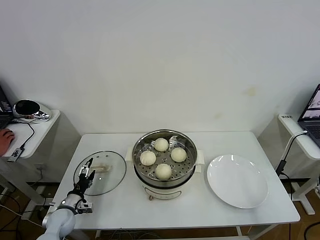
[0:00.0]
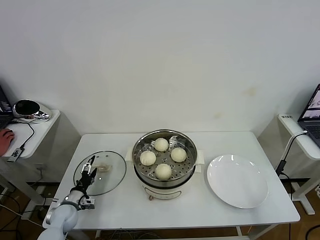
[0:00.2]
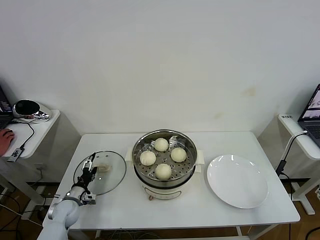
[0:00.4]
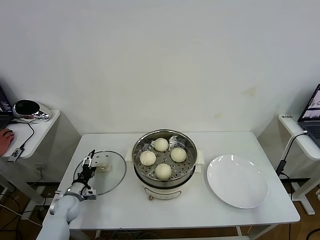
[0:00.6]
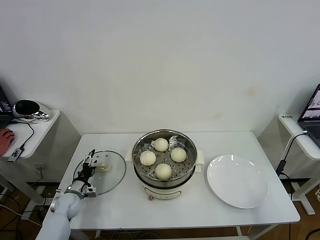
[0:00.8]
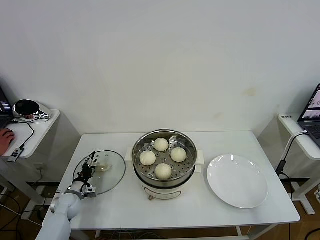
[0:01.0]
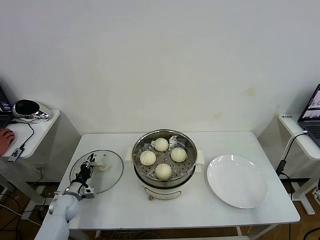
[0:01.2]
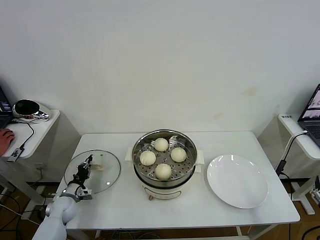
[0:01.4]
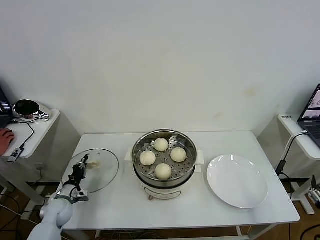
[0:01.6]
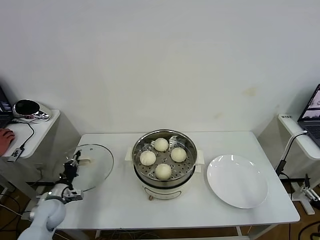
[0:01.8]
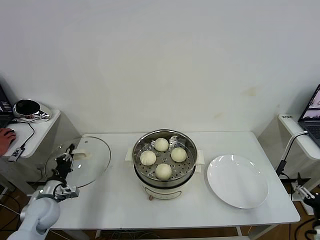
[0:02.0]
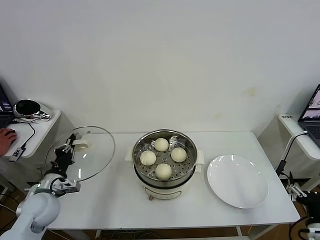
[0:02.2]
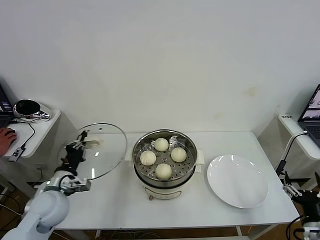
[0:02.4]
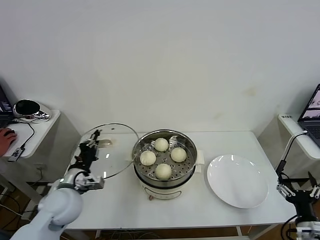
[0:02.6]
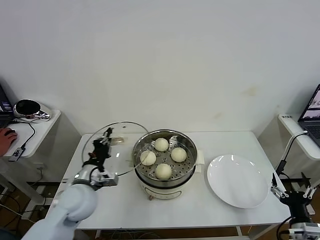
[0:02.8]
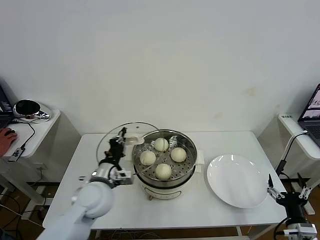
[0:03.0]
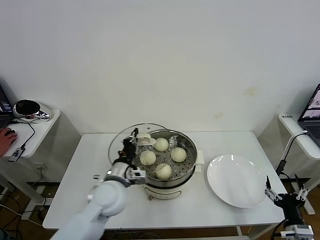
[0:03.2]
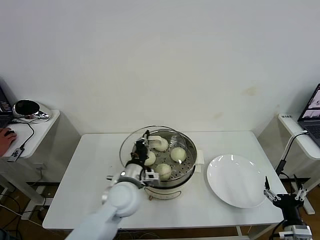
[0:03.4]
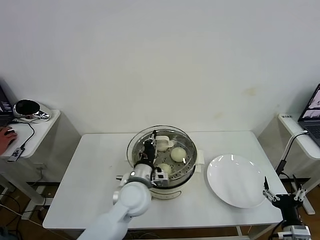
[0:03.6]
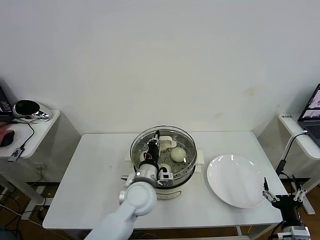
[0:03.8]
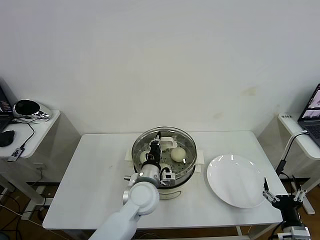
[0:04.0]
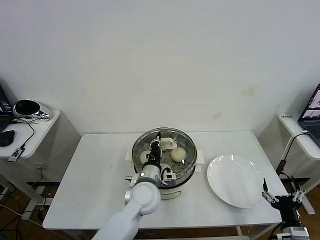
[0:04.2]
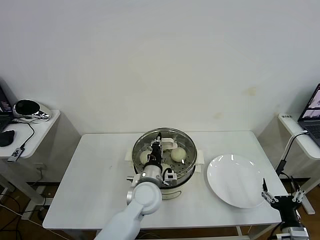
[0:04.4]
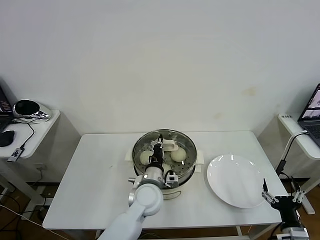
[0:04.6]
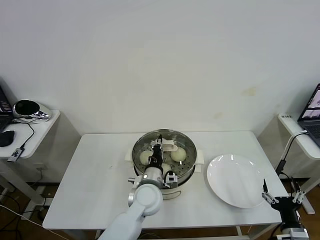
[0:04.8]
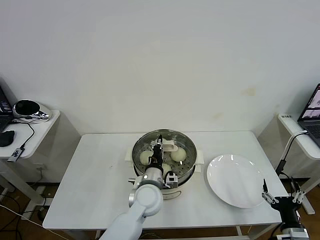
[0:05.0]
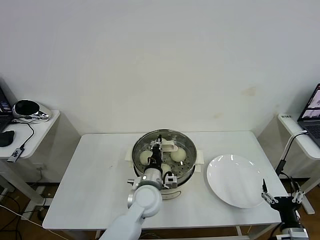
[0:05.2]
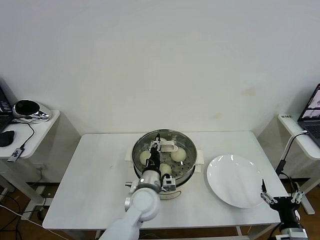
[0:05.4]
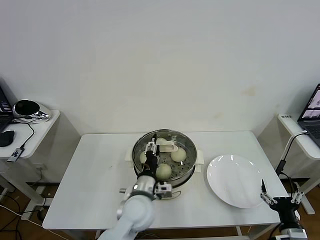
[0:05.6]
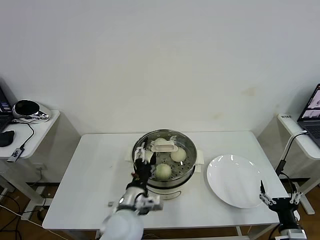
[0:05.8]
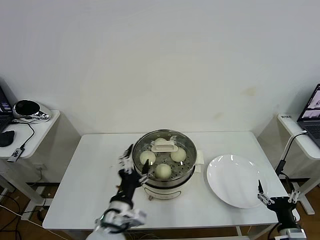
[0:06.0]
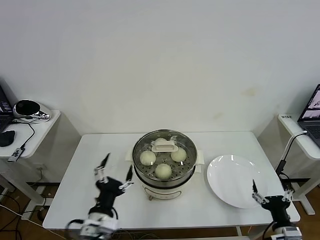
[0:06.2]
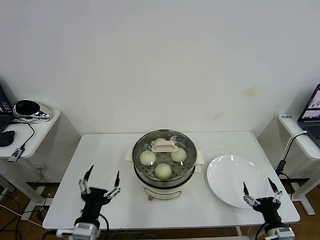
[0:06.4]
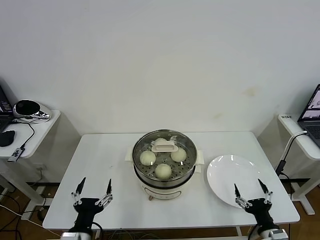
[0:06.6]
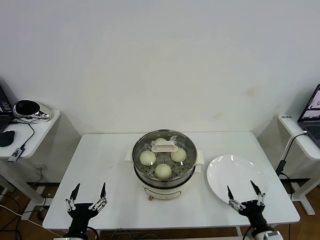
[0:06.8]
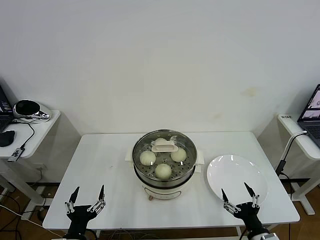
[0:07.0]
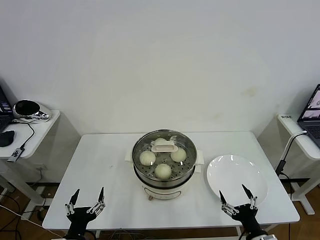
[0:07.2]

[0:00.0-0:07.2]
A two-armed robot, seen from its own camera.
Task of the whole recording: take steamed baozi put them in steamer then cover it.
Step, 0:01.8 to 0:05.8: Place the pot lid on the steamer with left gripper.
0:00.0 to 0:01.4: The left gripper goes some 5 cm forward, and closes.
0:01.4 to 0:02.8: The right gripper moves about 5 cm. The left gripper moves upward and to the right, about 25 cm.
0:02.8 to 0:04.4: The left gripper heads to the right, covering approximately 20 cm.
0:04.4 to 0:05.8: The left gripper travels backward by roughly 10 cm, and opens up.
0:05.8 to 0:07.2: The right gripper travels to the left by approximately 5 cm. The left gripper moves to the left and backward, roughly 20 cm.

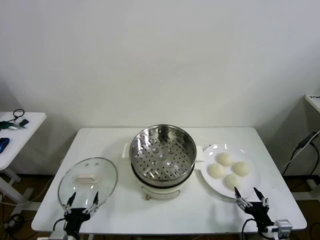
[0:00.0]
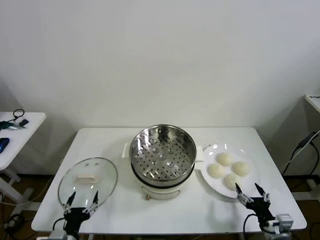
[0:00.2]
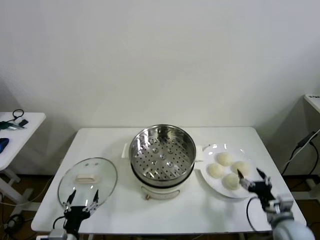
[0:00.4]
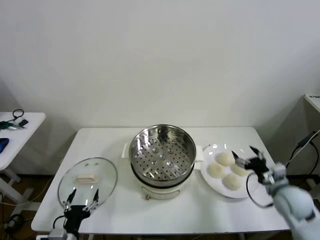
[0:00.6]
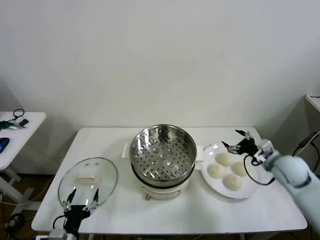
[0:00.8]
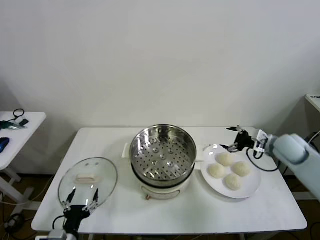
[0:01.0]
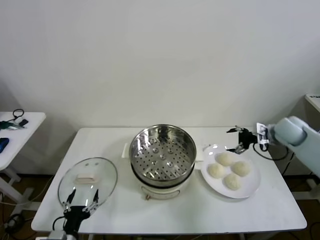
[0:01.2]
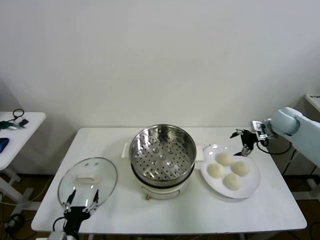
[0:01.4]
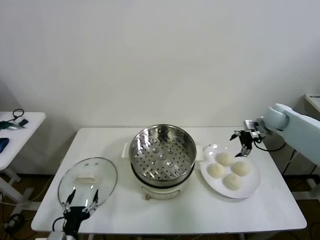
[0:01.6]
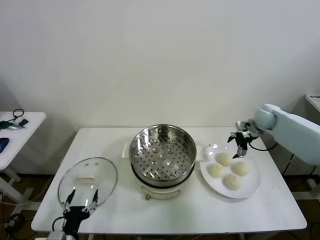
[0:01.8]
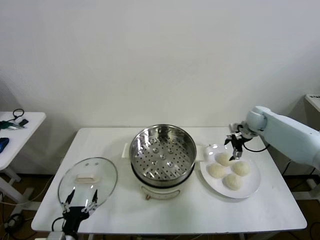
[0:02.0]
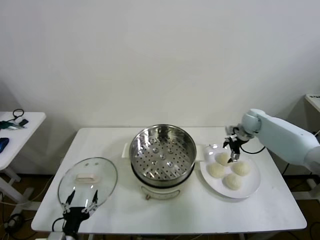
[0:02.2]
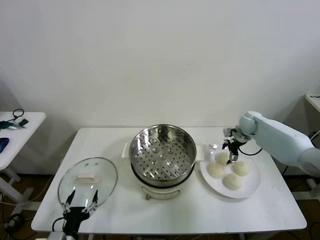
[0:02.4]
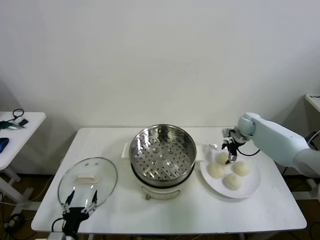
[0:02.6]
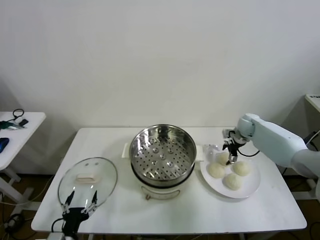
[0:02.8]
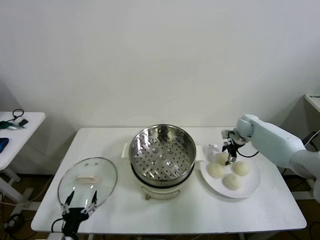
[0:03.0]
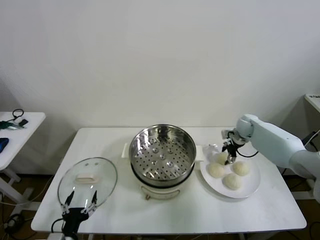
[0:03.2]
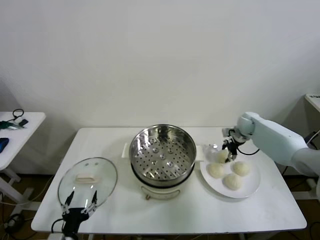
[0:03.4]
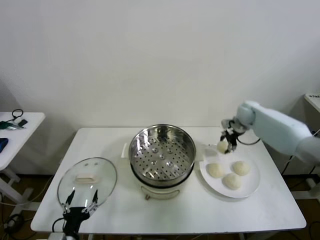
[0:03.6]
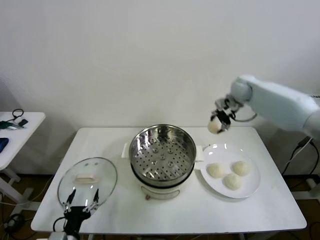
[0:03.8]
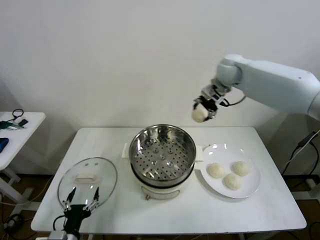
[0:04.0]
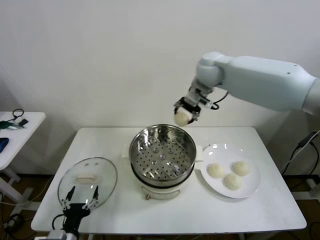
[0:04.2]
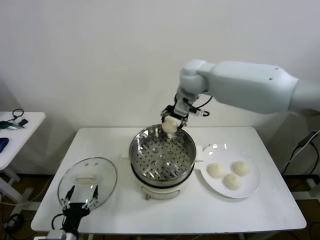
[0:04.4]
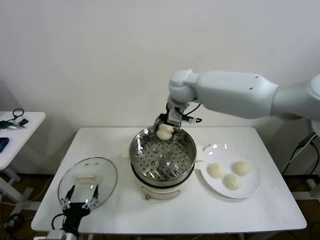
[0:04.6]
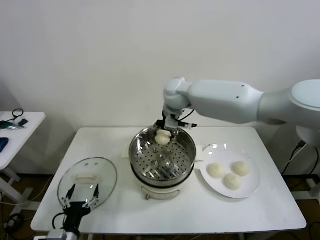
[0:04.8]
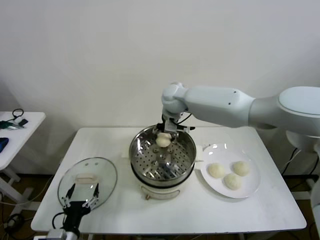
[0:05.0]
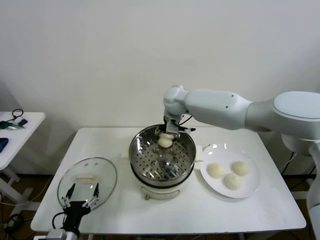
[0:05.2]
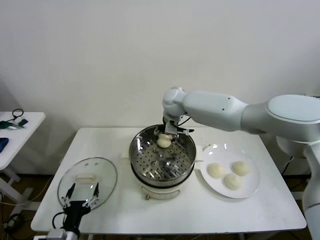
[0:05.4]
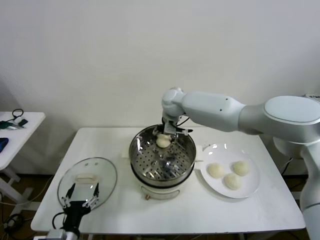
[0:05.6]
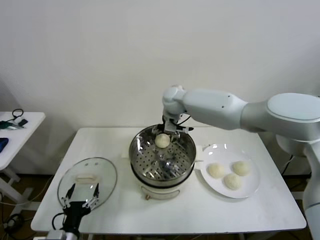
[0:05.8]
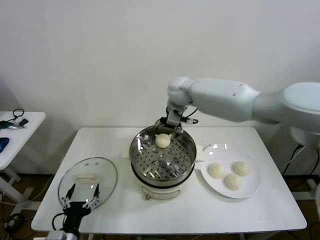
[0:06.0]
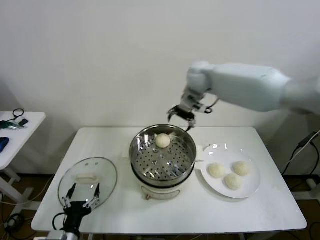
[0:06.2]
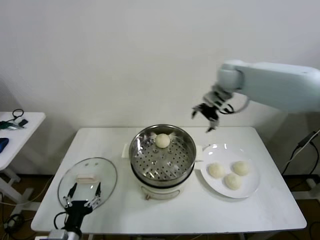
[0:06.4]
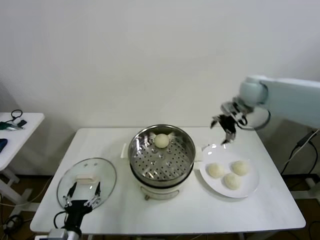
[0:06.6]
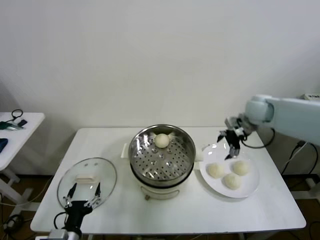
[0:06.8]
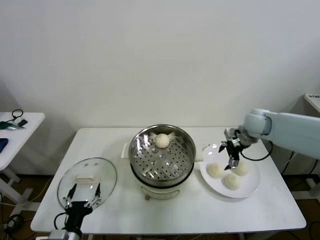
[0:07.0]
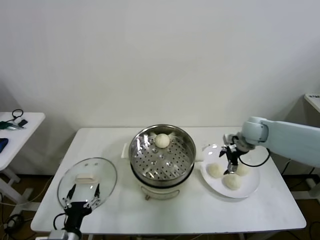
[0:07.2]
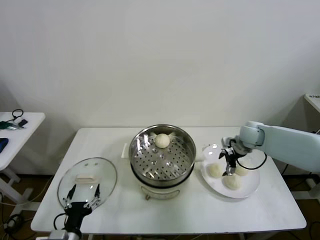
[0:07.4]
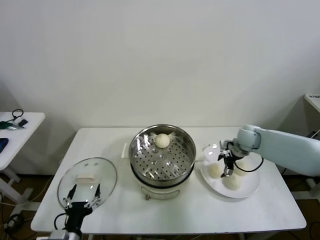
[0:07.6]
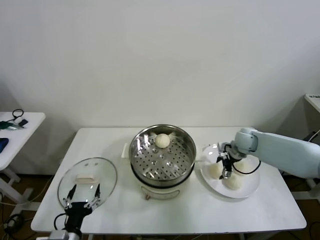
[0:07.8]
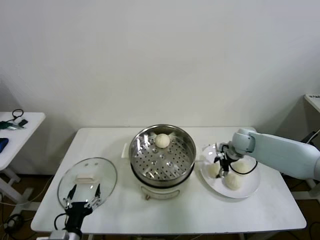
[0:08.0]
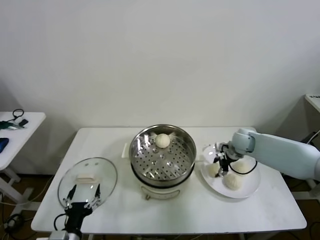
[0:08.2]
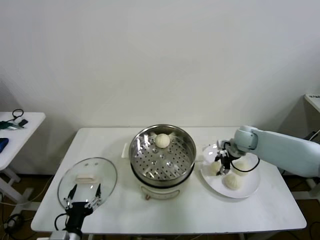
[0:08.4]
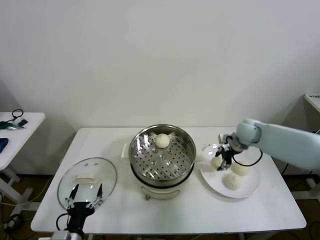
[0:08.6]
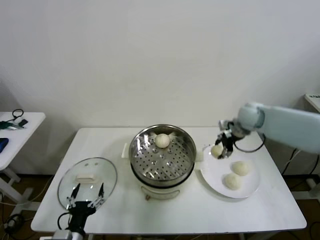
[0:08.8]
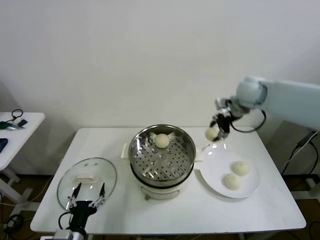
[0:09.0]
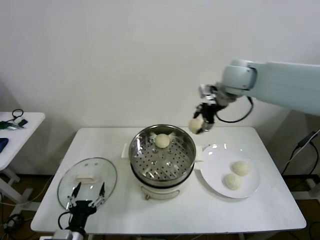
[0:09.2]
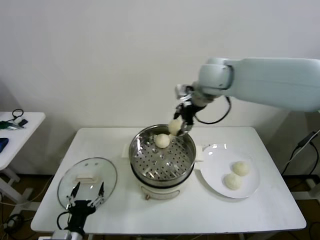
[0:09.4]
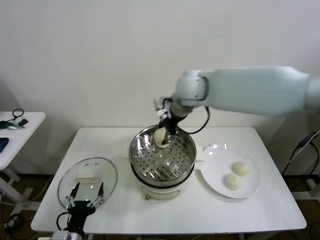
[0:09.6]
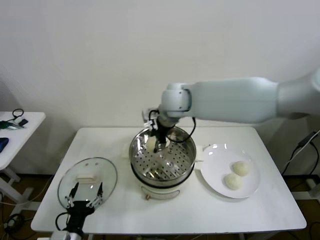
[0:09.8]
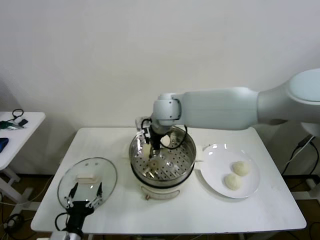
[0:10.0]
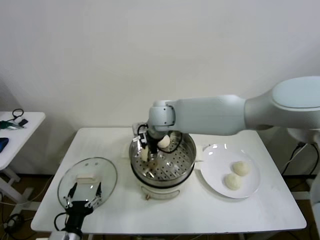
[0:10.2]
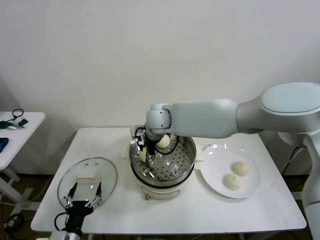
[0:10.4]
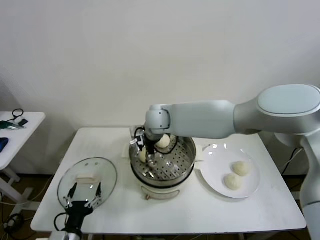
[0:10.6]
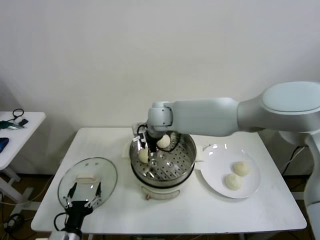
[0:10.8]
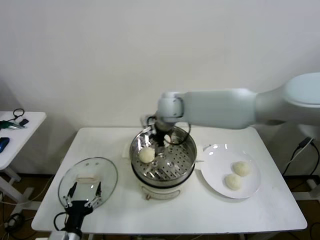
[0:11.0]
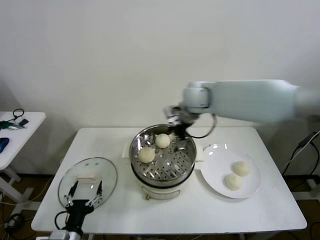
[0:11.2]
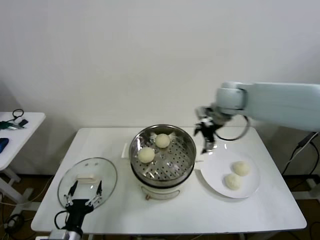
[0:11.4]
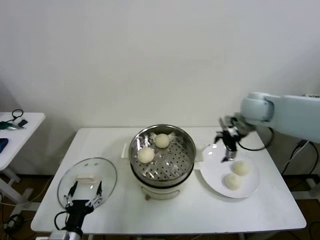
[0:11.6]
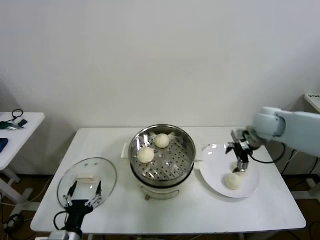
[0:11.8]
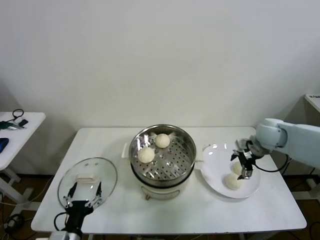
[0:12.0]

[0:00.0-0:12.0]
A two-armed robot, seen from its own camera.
Task of the whole recording: take steamed baozi put them in steamer then cover it.
Step, 0:00.0 to 0:03.2: Grasp the baozi in the plate with right gripper.
Step, 0:03.4 to 0:05.8: Place the baozi on the steamer with right gripper.
Step, 0:06.0 to 0:08.2: Grasp the baozi in the plate with right gripper.
Step, 0:08.6 to 0:10.8: Place the baozi on the steamer with right gripper.
0:01.6 to 0:03.0: The right gripper heads downward, covering roughly 10 cm, and closes up.
0:03.0 to 0:04.4: The right gripper shifts about 40 cm to the left and upward.
0:04.4 to 0:06.0: The right gripper opens up.
0:06.0 to 0:07.6: The right gripper is displaced to the right and downward by about 30 cm.
0:07.6 to 0:09.0: The right gripper is displaced upward by approximately 20 cm, and closes up.
0:09.0 to 0:10.4: The right gripper travels to the left by approximately 30 cm.
0:10.4 to 0:12.0: The right gripper heads to the right, covering some 35 cm, and opens.

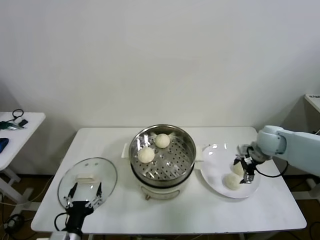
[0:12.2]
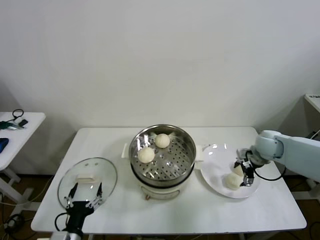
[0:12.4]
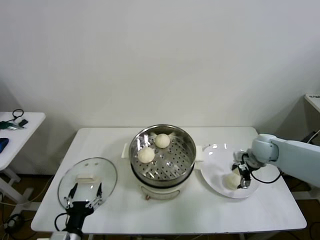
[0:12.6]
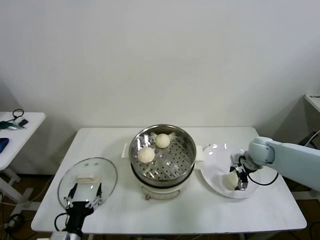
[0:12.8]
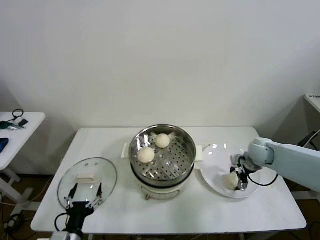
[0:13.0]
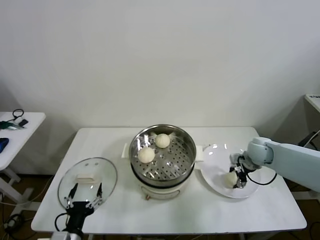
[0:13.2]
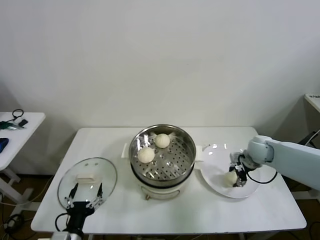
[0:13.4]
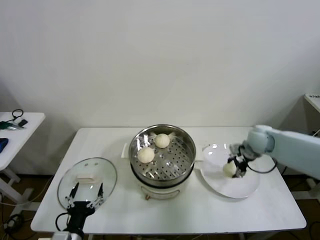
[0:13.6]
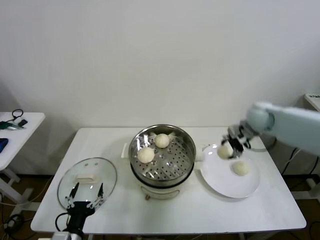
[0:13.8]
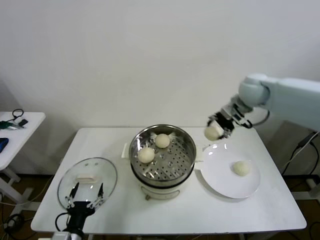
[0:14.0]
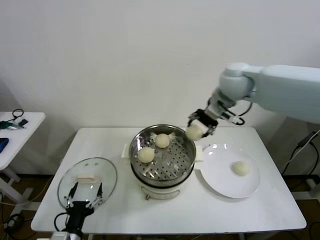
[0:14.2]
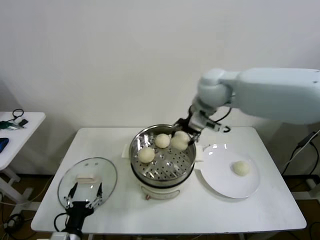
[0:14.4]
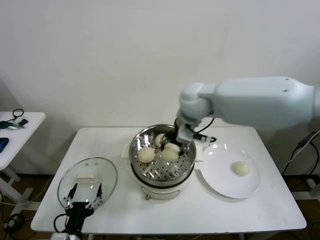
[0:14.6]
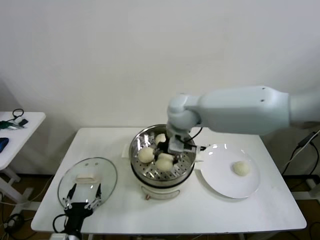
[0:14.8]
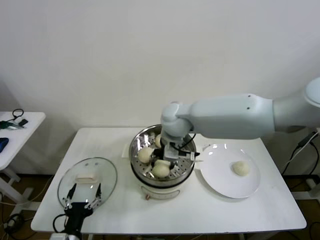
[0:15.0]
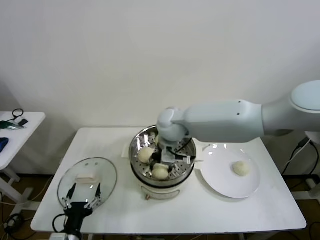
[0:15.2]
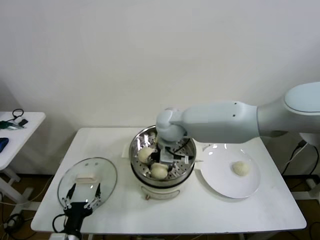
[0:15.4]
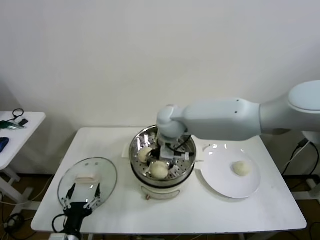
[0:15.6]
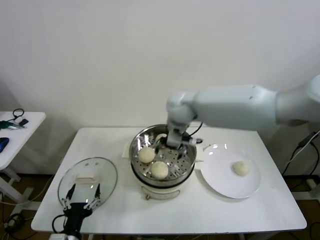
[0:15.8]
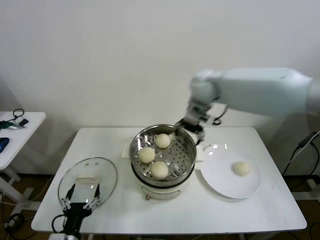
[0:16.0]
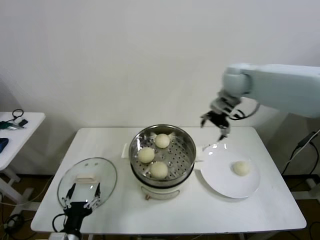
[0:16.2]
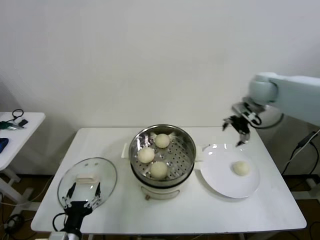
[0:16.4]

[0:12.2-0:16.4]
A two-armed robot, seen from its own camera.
Task of the whole recording: take steamed baozi put them in steamer then cover it.
Step, 0:12.2 to 0:13.4: Grasp the baozi in the plate with right gripper.
Step, 0:13.6 to 0:15.6: Place the baozi on the steamer with right gripper.
0:12.2 to 0:13.6: The right gripper closes.
0:13.6 to 0:15.0: The right gripper travels to the left by about 30 cm.
0:15.0 to 0:16.4: The right gripper is displaced to the right by approximately 30 cm, and opens.
